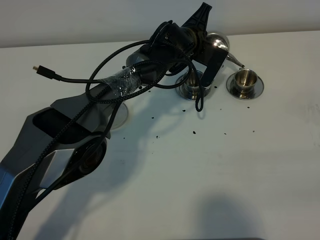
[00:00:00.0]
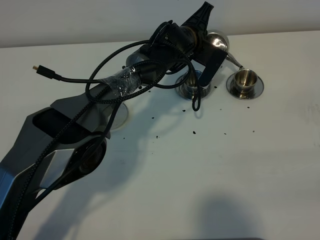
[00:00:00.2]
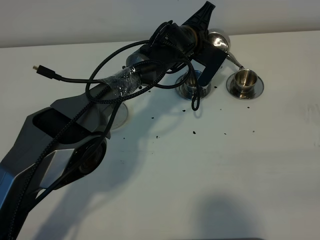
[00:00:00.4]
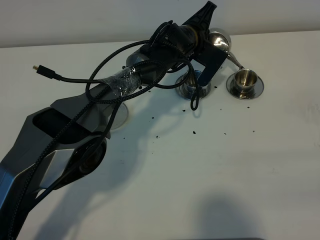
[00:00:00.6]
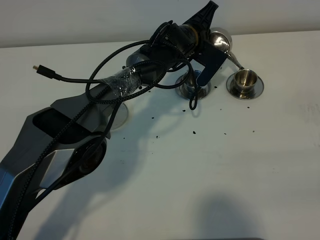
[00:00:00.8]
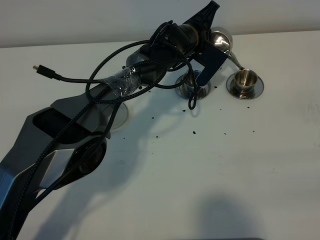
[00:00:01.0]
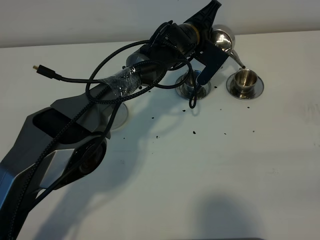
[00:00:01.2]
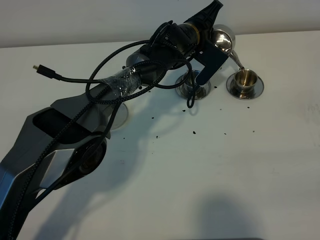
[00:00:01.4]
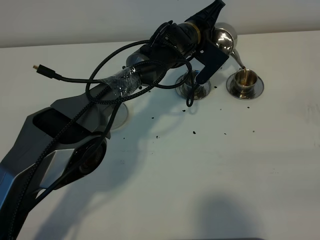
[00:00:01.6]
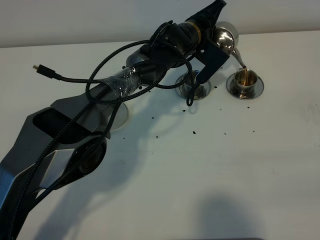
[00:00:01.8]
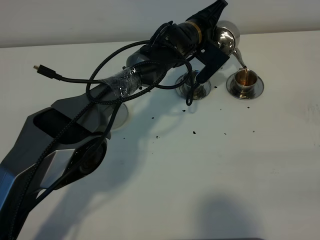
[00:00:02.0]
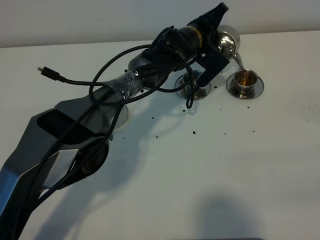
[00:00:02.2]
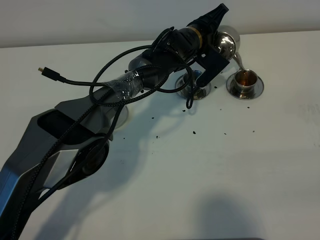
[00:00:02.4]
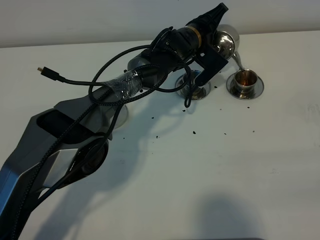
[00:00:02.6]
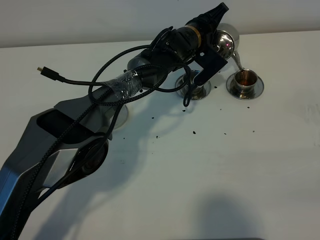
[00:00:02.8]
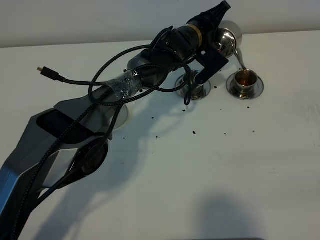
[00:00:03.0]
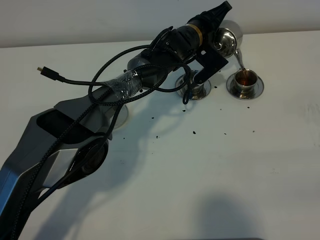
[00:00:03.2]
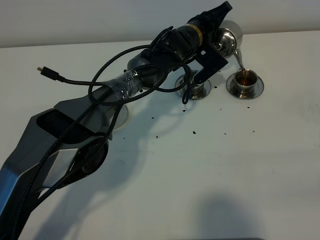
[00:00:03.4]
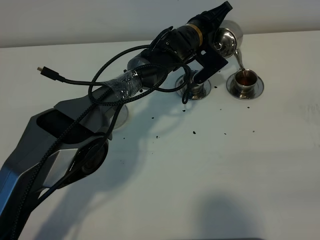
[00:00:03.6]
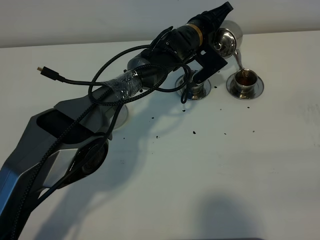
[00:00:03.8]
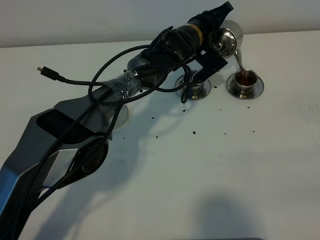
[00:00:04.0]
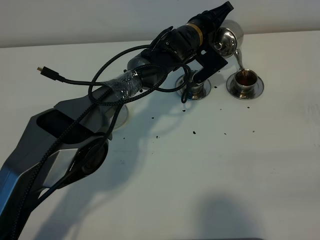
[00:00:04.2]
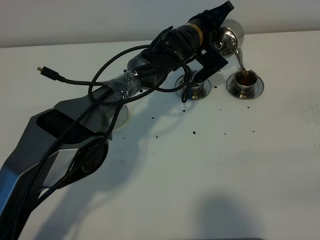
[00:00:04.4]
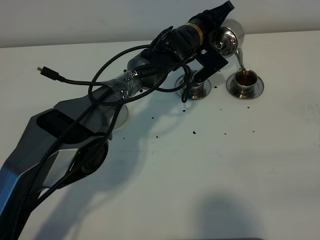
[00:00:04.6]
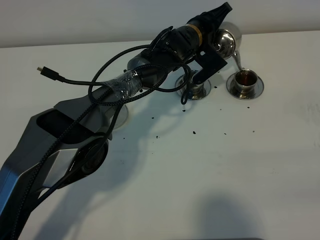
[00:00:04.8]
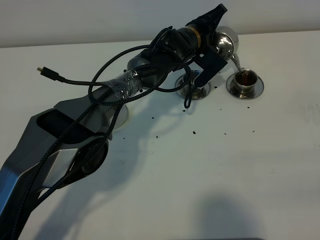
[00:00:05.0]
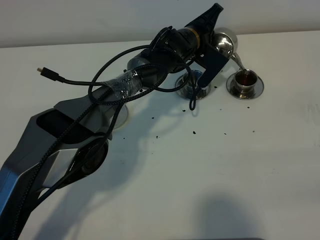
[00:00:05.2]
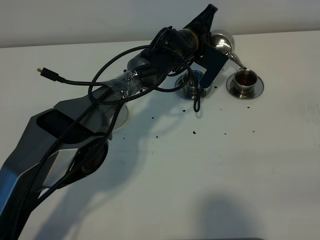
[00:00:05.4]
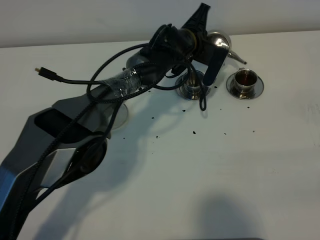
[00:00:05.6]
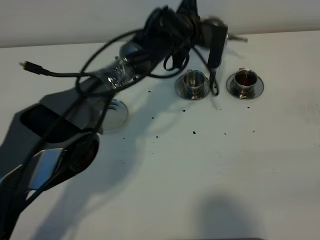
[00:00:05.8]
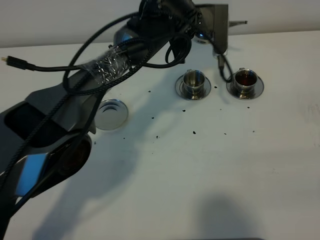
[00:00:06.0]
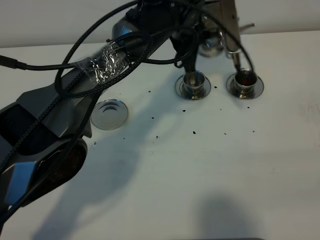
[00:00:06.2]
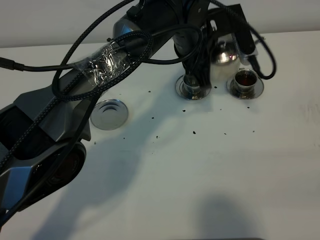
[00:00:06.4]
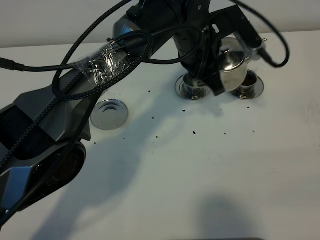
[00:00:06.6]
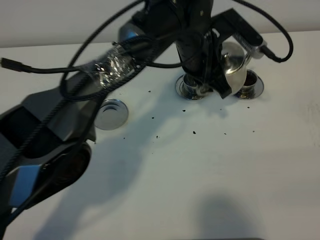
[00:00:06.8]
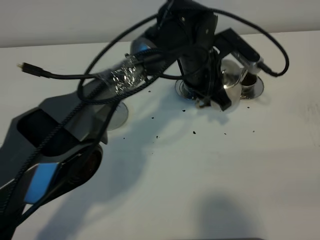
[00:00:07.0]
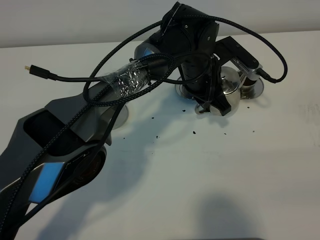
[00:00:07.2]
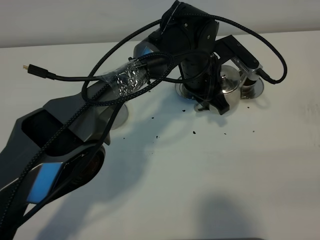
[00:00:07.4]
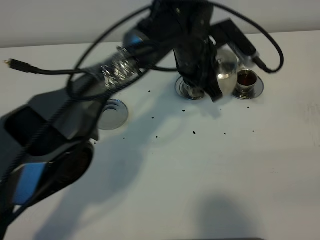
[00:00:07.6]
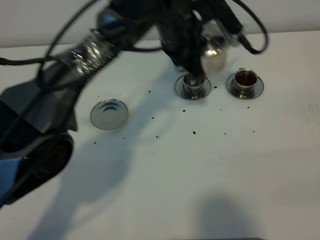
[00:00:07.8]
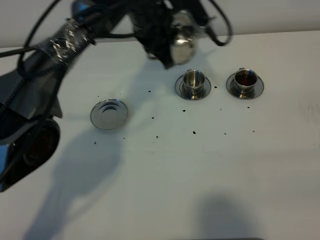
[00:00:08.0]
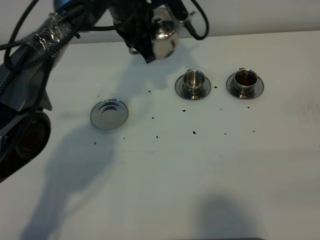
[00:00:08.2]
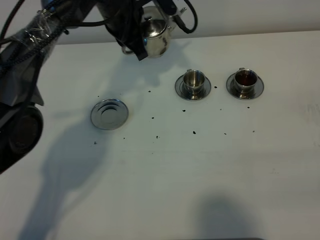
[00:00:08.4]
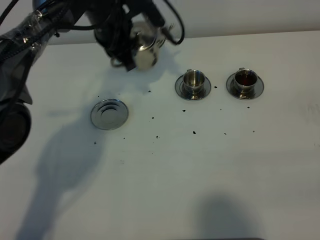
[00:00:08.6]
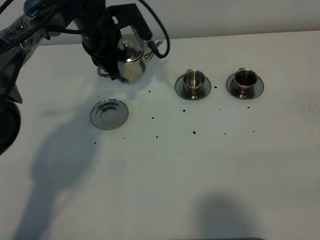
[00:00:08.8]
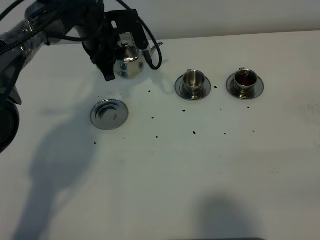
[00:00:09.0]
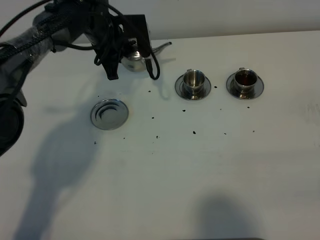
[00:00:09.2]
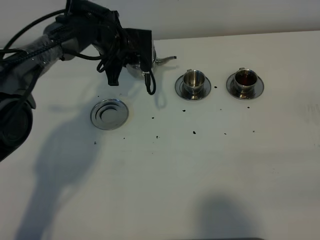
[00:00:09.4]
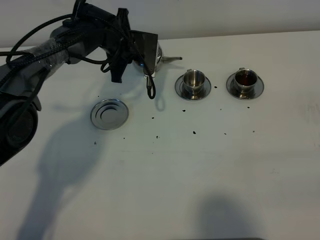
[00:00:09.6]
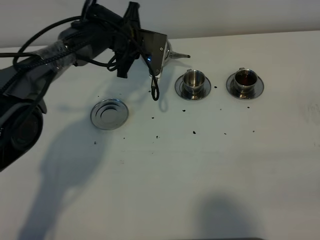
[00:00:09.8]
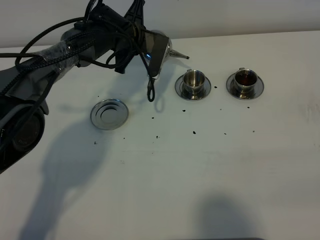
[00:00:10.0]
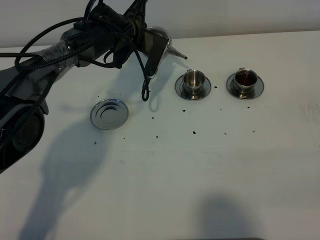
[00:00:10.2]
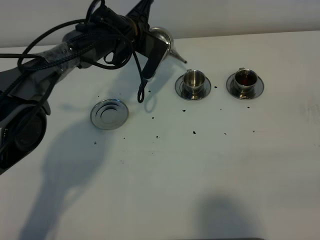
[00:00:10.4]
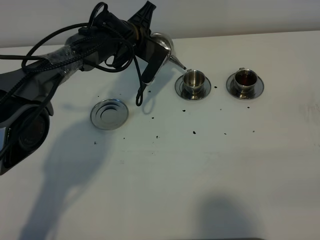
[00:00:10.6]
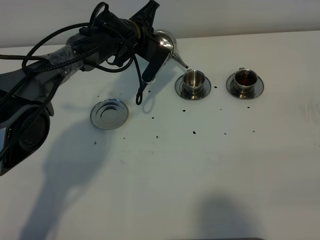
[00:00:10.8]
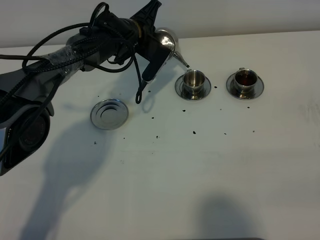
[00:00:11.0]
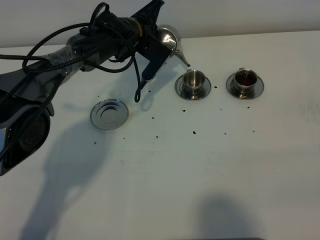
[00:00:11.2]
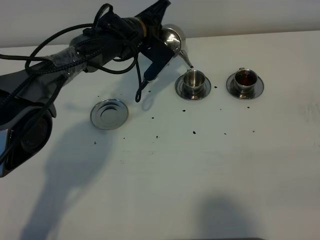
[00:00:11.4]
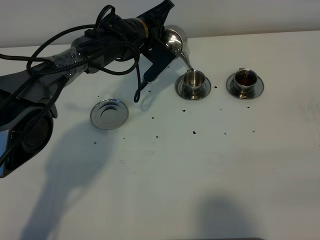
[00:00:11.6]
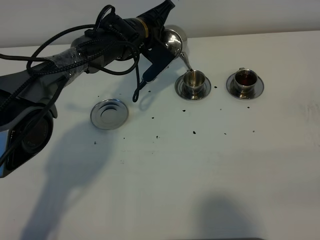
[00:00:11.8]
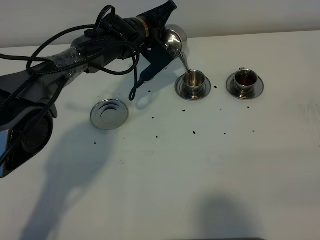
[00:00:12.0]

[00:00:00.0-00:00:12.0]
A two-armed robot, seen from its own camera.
Task of the whole recording: grasp the stainless steel teapot and pour the tea into the two stainless steel teacups one by one, put the stainless steel teapot back in its original place.
00:00:00.0 to 00:00:01.6: The grippers move only a little.
00:00:01.6 to 00:00:03.0: There are only small adjustments of the grippers.
00:00:03.0 to 00:00:04.4: Both grippers stay put.
00:00:04.4 to 00:00:06.0: The left gripper heads upward, covering approximately 10 cm.
00:00:06.0 to 00:00:07.6: The left gripper moves backward, roughly 5 cm, and reaches about 5 cm downward, then returns.
00:00:07.6 to 00:00:09.0: The left gripper is displaced to the left and forward by about 20 cm.
00:00:09.0 to 00:00:10.4: The left gripper moves to the right, roughly 5 cm.

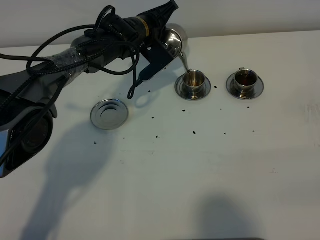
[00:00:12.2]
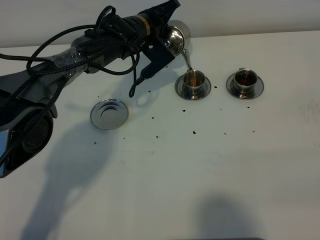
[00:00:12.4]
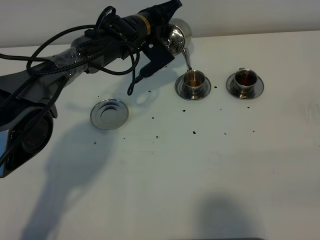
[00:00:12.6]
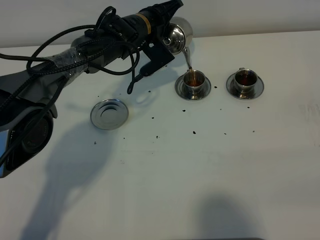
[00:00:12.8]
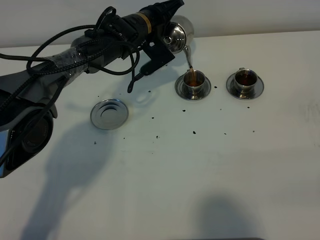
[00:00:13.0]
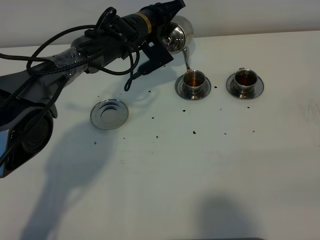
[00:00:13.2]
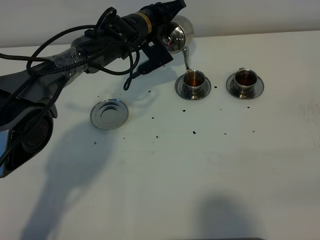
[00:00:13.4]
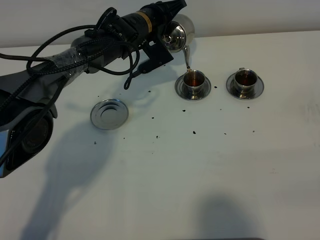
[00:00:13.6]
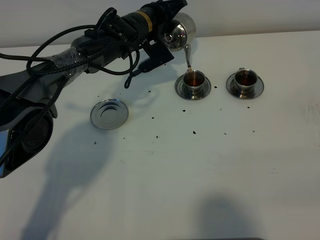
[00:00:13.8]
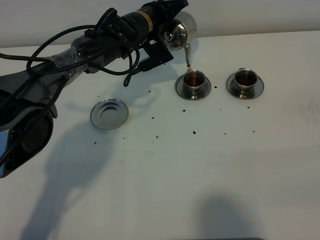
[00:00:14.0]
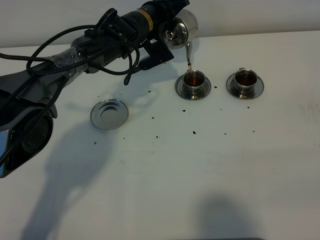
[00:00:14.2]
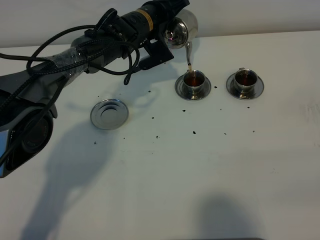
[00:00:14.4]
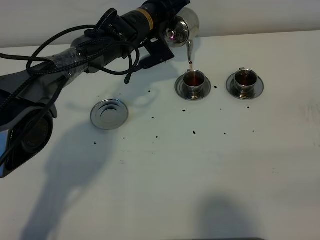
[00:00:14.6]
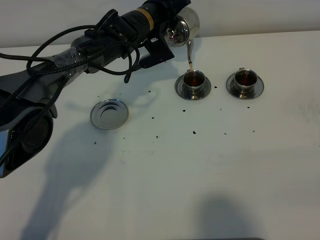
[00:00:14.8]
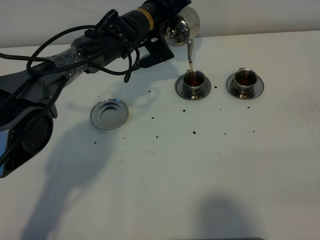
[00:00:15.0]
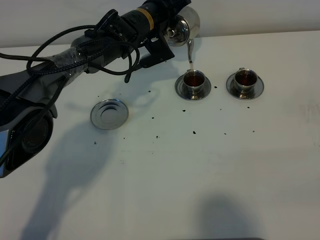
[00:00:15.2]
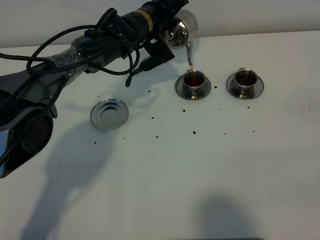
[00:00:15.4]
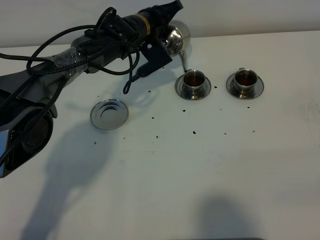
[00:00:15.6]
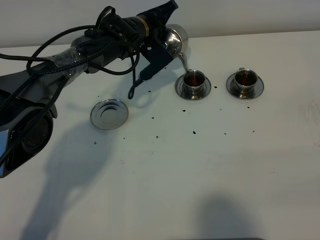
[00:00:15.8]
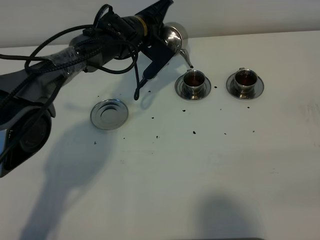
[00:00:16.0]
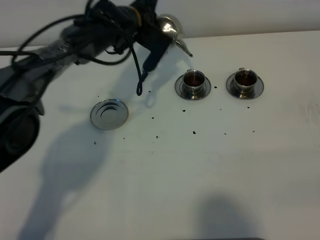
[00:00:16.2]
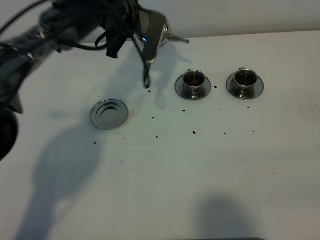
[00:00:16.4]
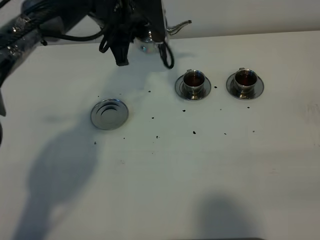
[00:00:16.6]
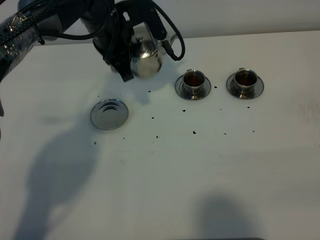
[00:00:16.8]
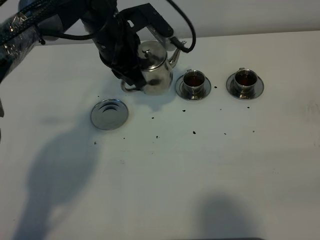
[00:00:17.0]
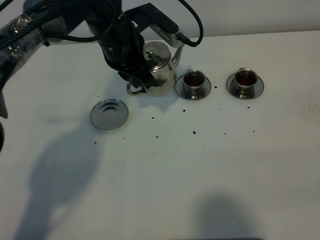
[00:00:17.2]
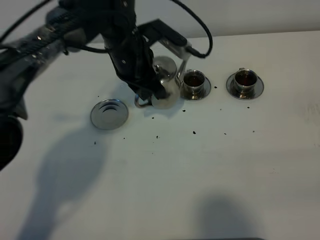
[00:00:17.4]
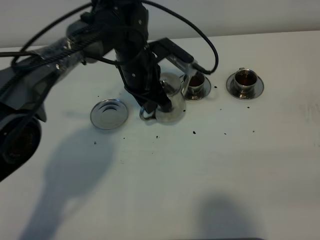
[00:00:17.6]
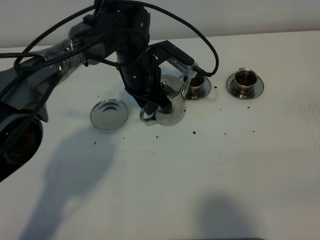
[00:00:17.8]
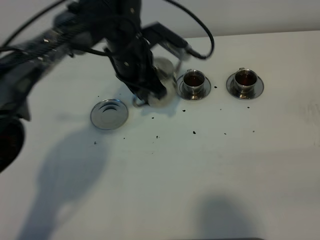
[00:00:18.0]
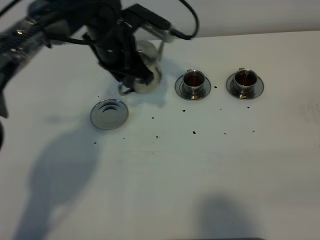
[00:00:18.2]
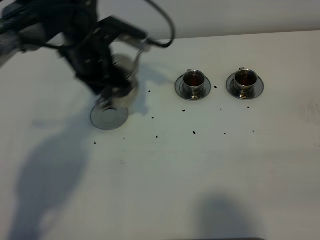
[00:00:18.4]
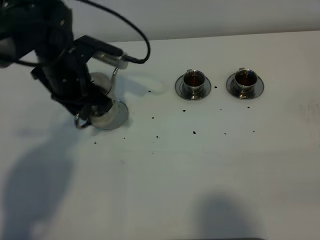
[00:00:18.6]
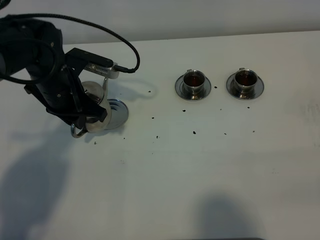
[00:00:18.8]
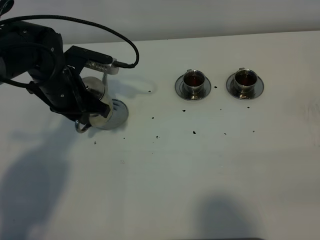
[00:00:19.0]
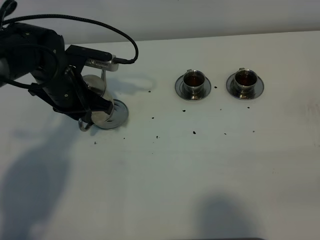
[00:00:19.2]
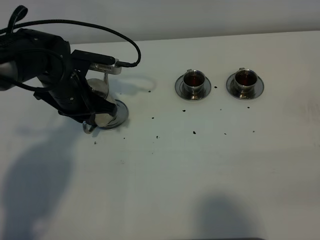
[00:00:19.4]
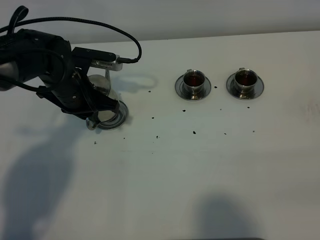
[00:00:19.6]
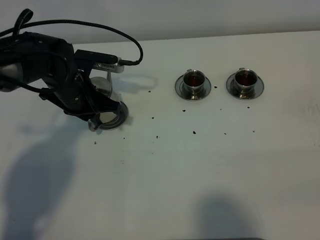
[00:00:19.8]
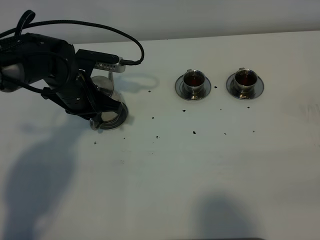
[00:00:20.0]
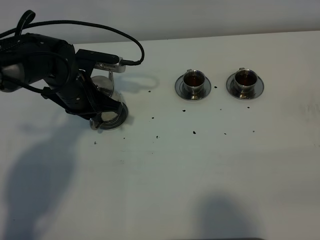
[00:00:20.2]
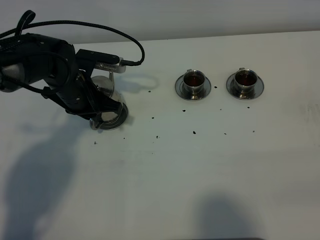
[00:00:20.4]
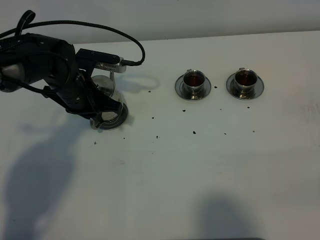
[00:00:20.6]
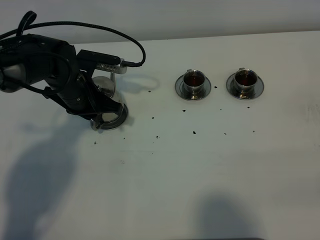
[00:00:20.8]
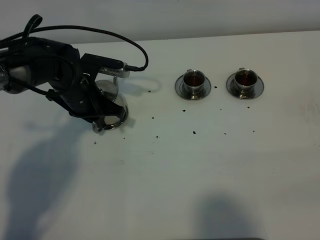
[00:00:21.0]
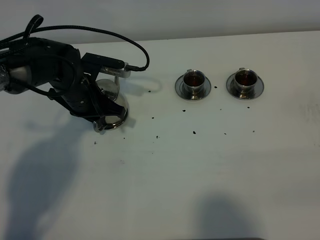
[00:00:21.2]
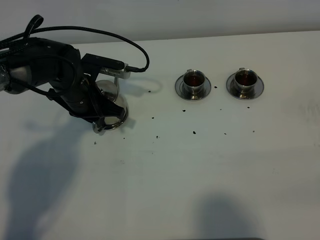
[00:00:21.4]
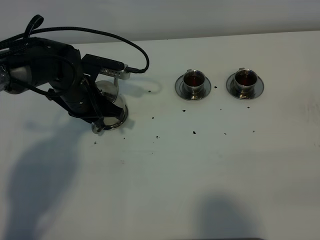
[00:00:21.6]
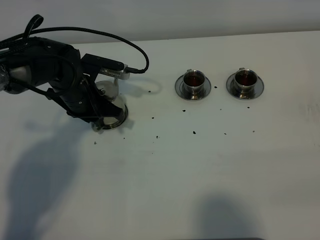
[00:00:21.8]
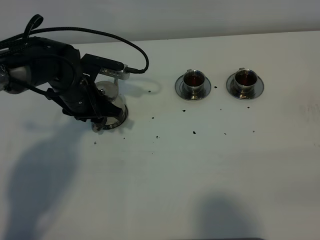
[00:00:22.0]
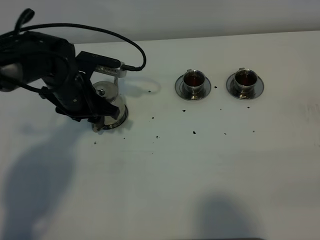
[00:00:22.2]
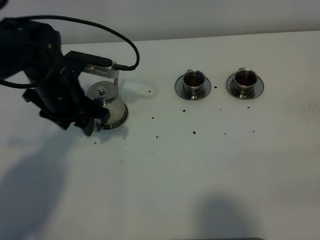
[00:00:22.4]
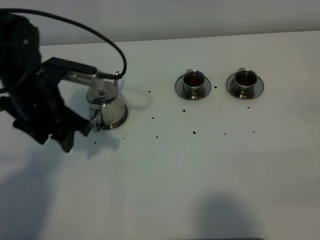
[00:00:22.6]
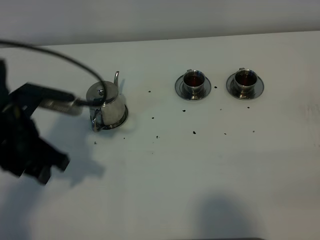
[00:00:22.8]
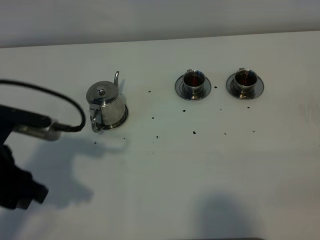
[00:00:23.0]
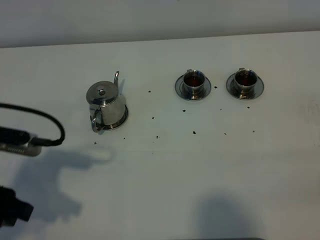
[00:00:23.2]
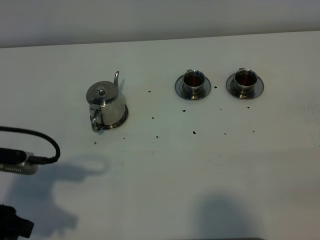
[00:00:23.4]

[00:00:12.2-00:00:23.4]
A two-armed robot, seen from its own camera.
Task of the whole recording: grasp the stainless steel teapot and pour the tea into the two stainless steel teacups one by one, put the stainless steel teapot back in its original place.
Step, 00:00:12.2 to 00:00:16.2: Pour tea into the teacup with the left gripper.
00:00:12.2 to 00:00:15.4: The grippers stay close to where they were, moving slightly.
00:00:15.4 to 00:00:17.0: The left gripper moves backward and upward, approximately 10 cm.
00:00:17.0 to 00:00:18.6: The left gripper is displaced to the left by approximately 10 cm.
00:00:18.6 to 00:00:20.2: The left gripper moves downward, some 5 cm.
00:00:20.2 to 00:00:21.8: Neither gripper changes place.
00:00:21.8 to 00:00:23.4: The left gripper shifts some 25 cm backward, and opens up.
